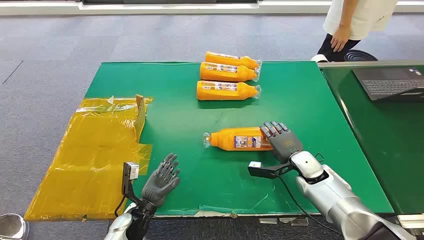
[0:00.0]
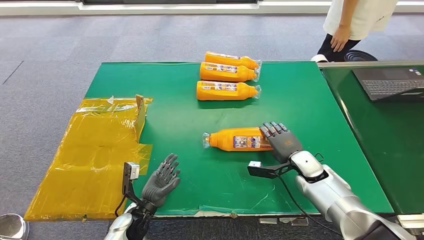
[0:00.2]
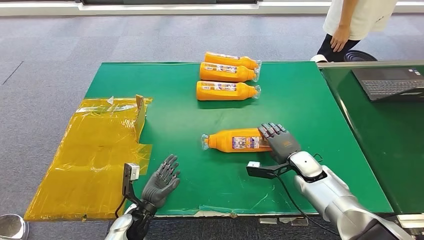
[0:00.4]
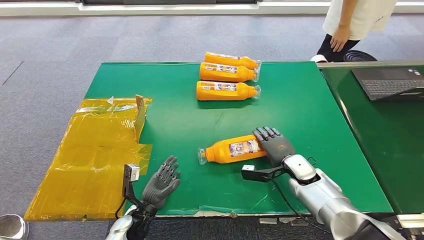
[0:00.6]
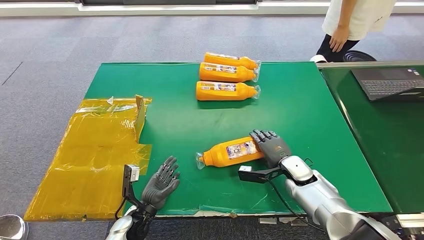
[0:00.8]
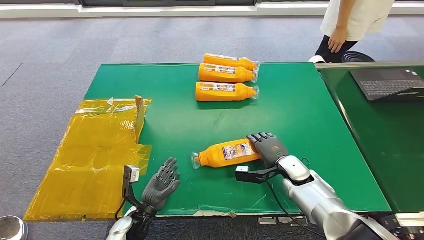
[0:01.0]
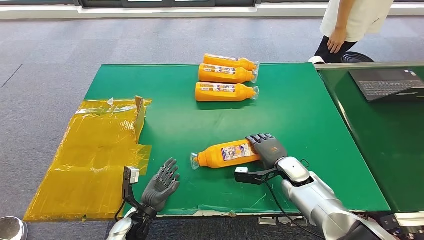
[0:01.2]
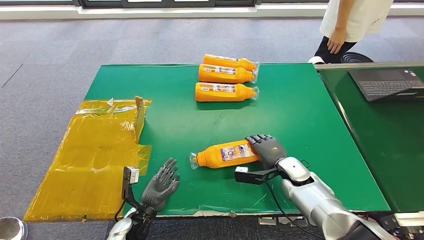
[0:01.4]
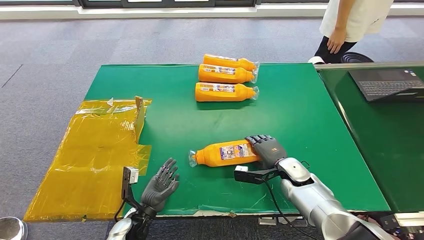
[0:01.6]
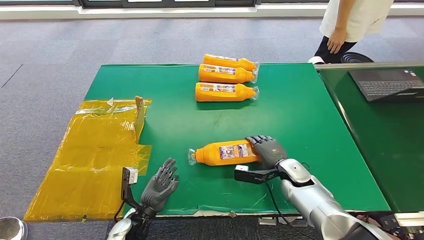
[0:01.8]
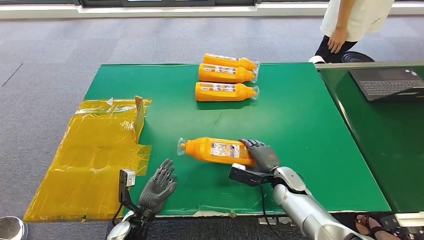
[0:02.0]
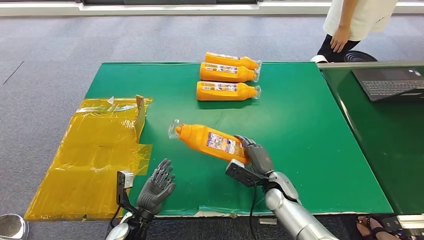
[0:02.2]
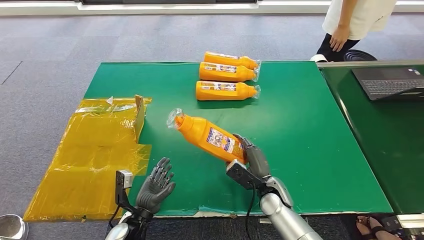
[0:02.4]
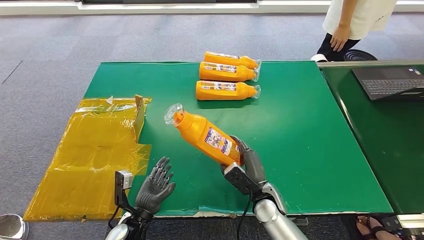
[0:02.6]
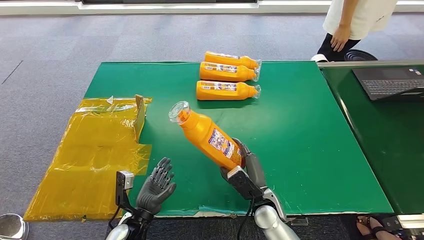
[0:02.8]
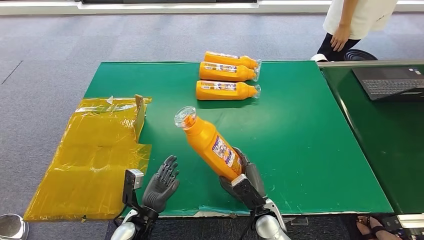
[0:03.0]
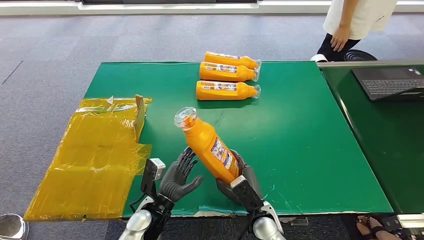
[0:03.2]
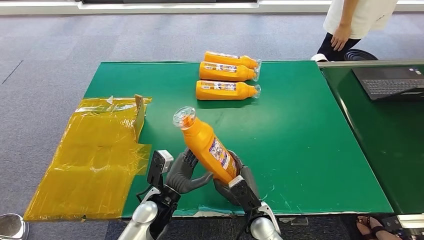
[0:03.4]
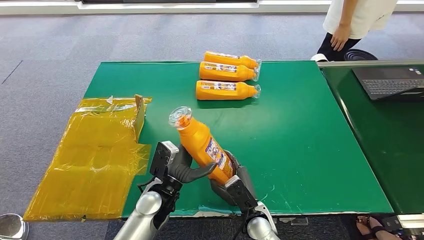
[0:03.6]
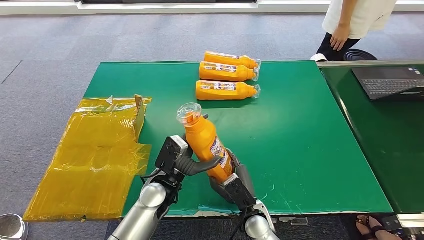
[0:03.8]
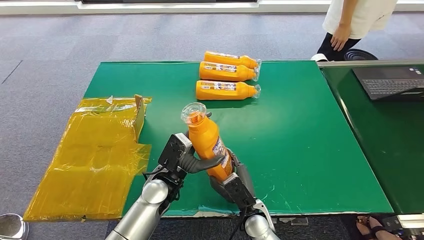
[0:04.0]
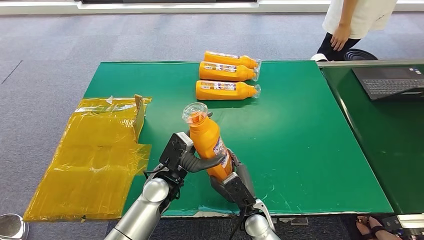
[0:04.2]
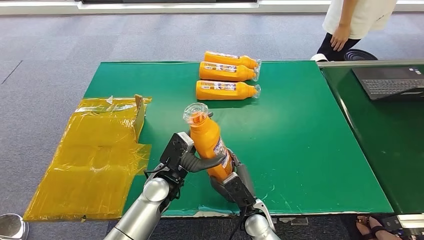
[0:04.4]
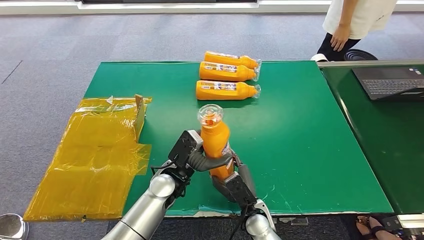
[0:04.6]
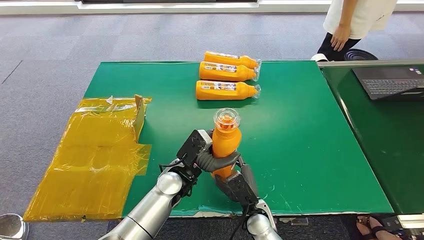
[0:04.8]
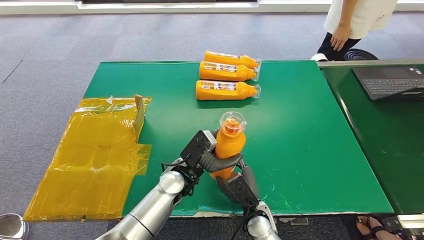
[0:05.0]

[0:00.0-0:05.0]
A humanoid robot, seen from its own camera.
Step, 0:00.0 to 0:01.6: Pick up the bottle from the table.
Step, 0:02.4 to 0:05.0: Turn the bottle to the front side.
0:03.4 to 0:05.0: The left hand travels forward and to the right by roughly 10 cm.
